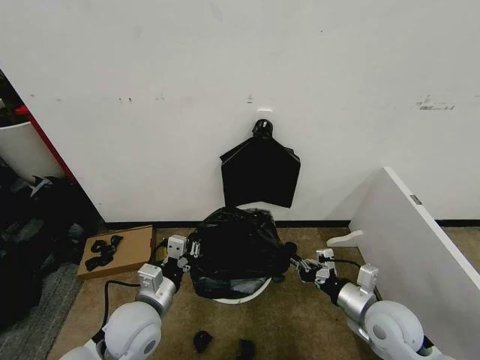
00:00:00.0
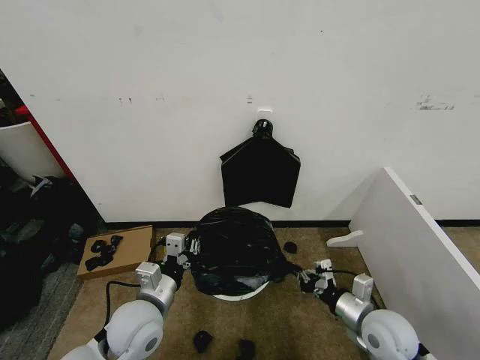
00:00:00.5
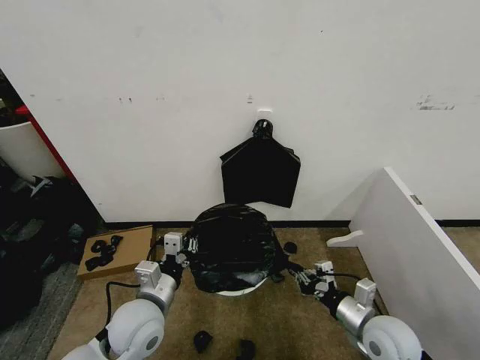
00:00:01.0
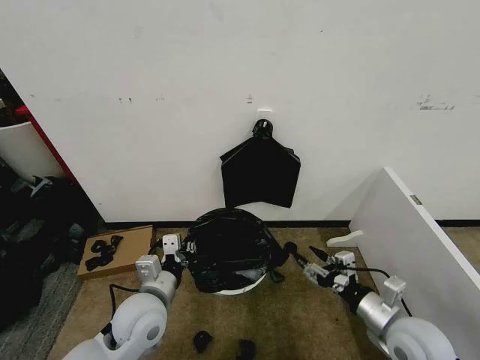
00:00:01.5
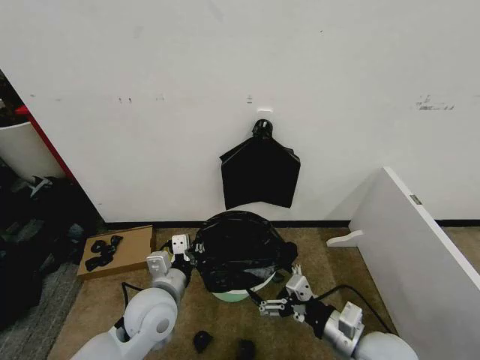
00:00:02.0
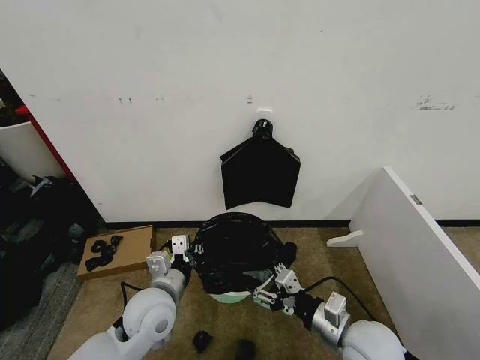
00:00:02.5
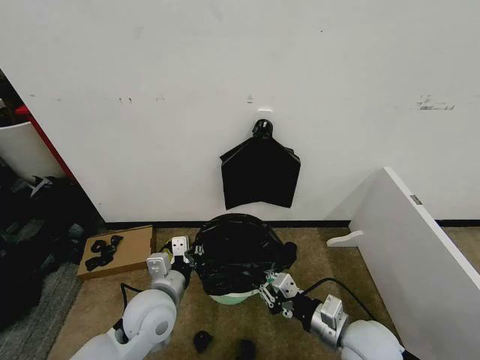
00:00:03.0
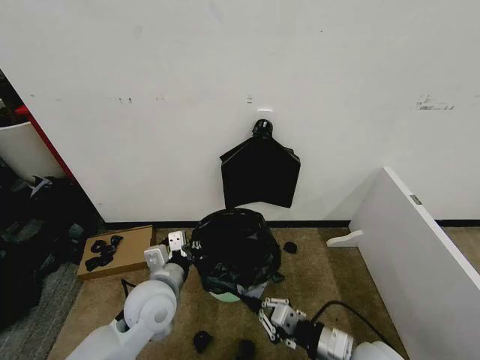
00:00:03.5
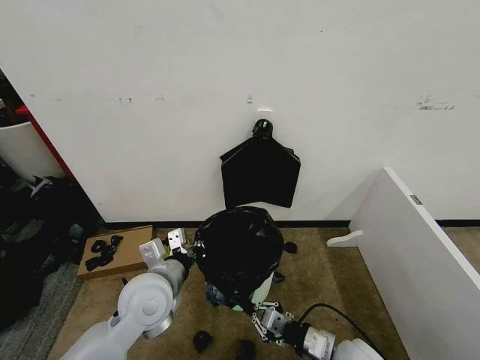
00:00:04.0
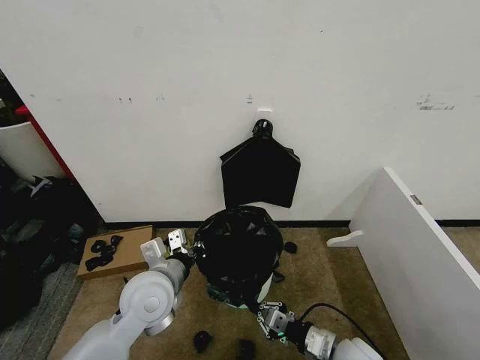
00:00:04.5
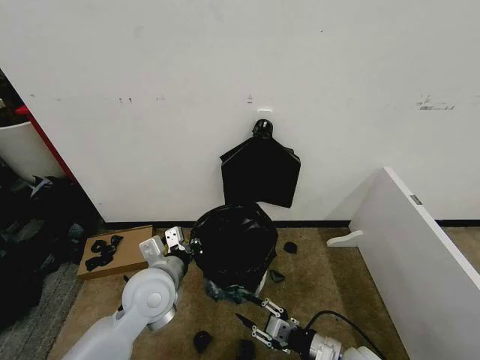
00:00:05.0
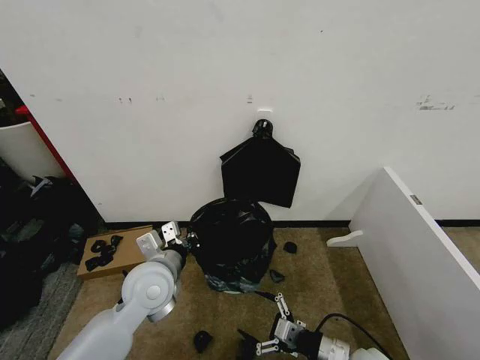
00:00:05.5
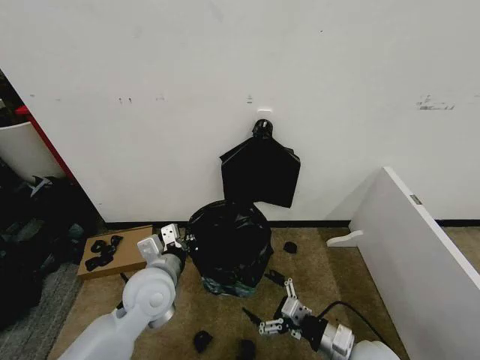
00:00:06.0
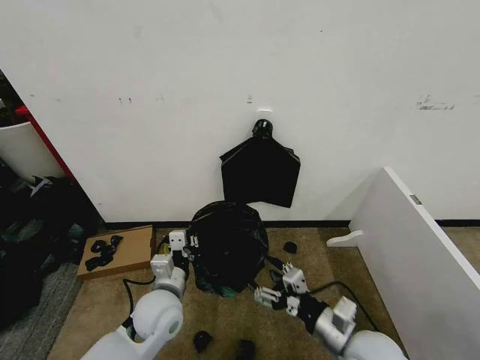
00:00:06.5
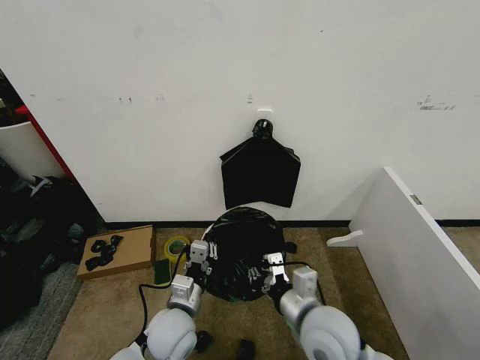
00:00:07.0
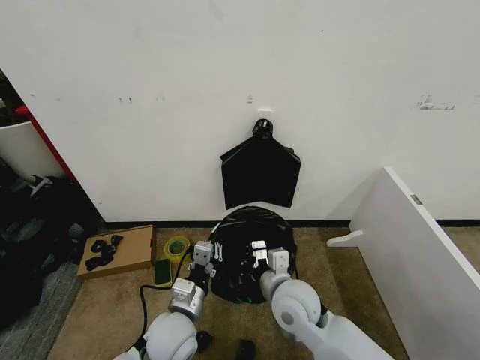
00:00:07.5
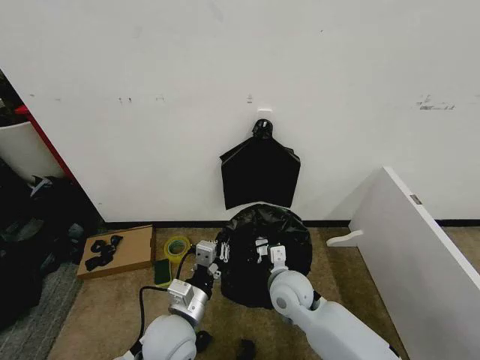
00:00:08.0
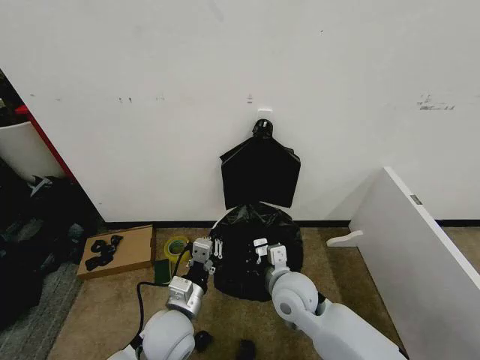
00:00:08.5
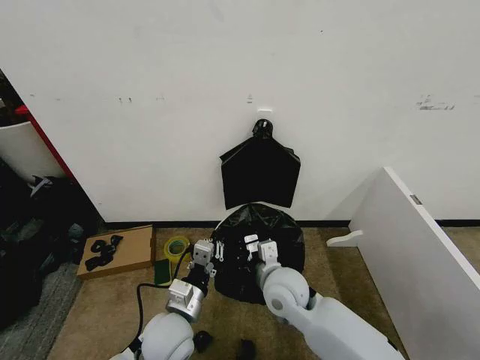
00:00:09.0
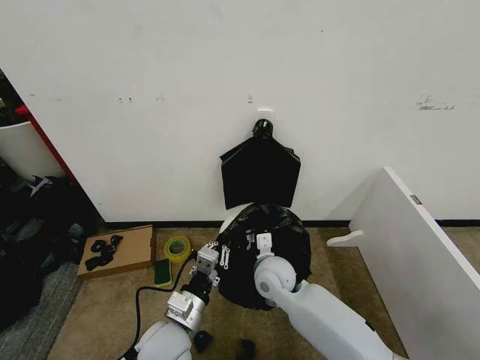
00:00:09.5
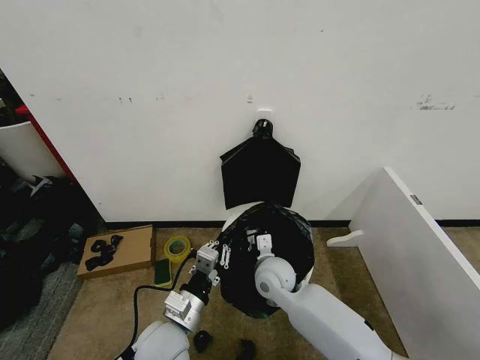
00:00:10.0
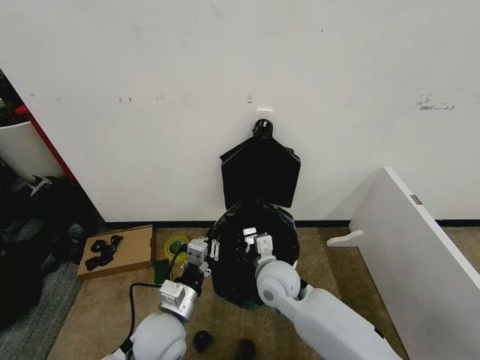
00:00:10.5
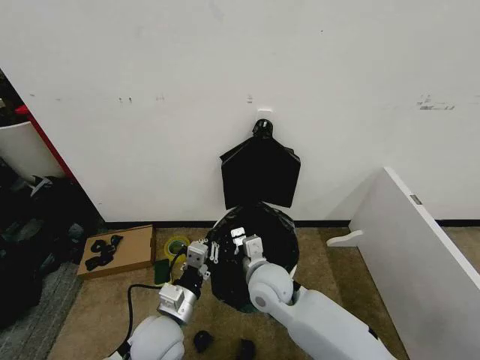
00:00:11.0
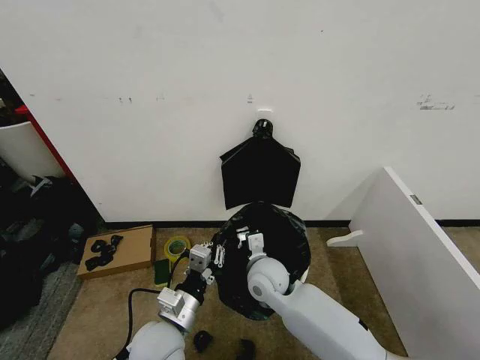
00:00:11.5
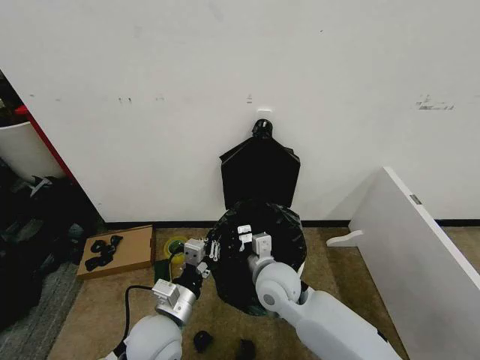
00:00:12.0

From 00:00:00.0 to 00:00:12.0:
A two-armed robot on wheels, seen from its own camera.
Task of the whole recording: Place the garbage bag over the trash bin.
From 00:00:00.0 to 00:00:02.0: The right gripper is displaced backward and to the left by approximately 10 cm, and opens.
From 00:00:02.0 to 00:00:04.0: The right gripper heads downward, covering some 10 cm, and closes up.
From 00:00:04.0 to 00:00:06.0: The right gripper opens.
From 00:00:06.0 to 00:00:08.0: The left gripper travels backward and downward by approximately 10 cm. The right gripper is displaced to the left and forward by approximately 20 cm, and closes up.
From 00:00:08.0 to 00:00:10.0: The right gripper moves roughly 5 cm.
From 00:00:10.0 to 00:00:12.0: The right gripper moves approximately 5 cm.

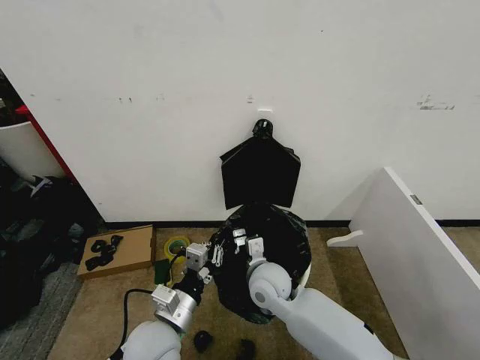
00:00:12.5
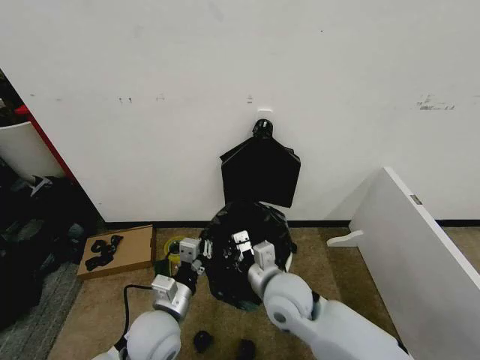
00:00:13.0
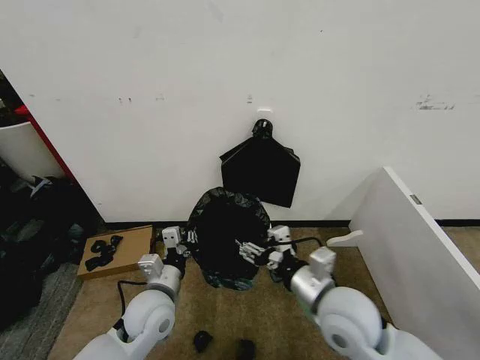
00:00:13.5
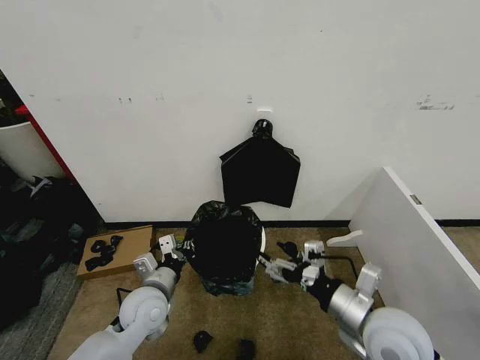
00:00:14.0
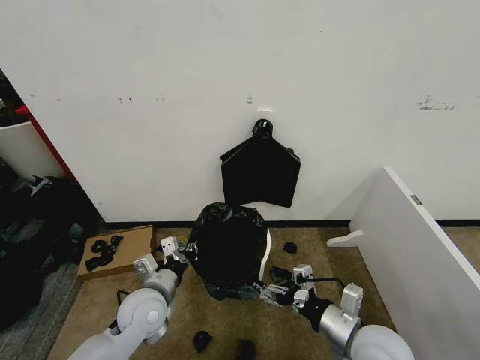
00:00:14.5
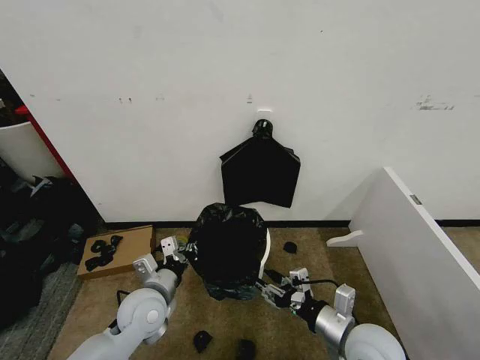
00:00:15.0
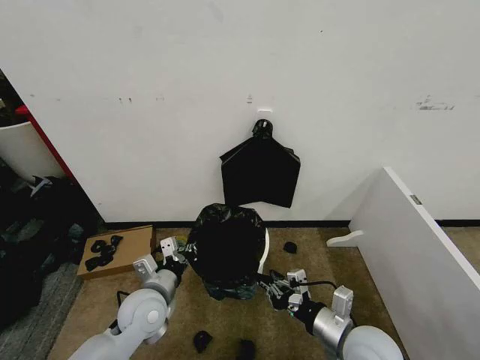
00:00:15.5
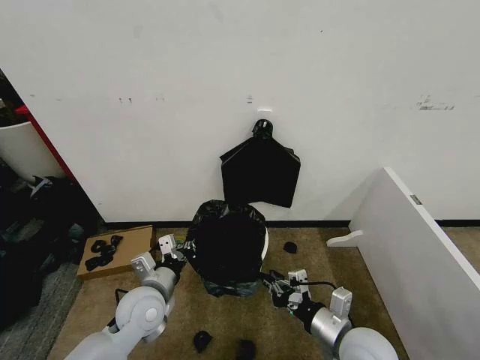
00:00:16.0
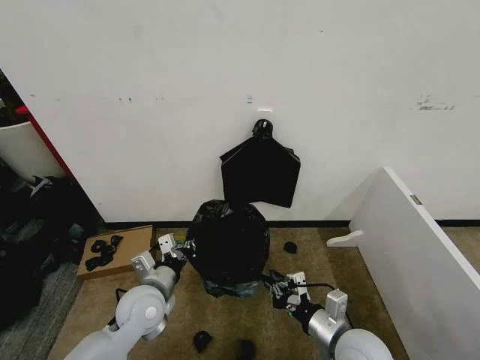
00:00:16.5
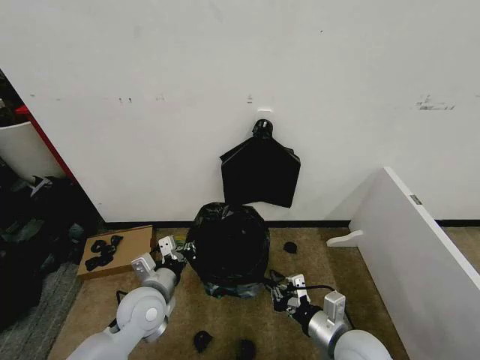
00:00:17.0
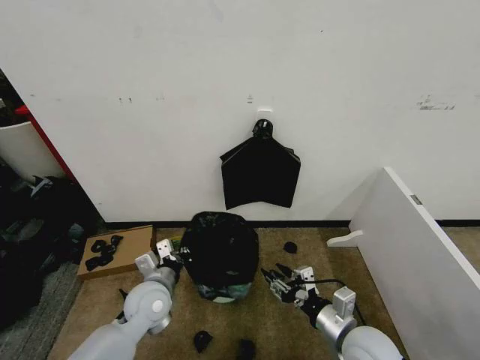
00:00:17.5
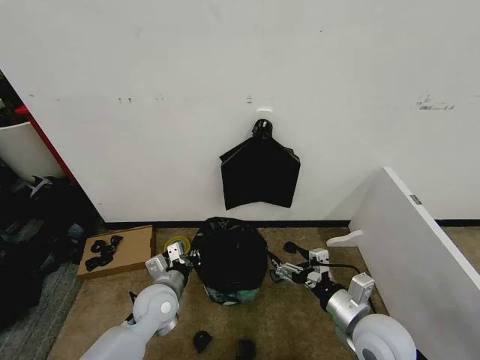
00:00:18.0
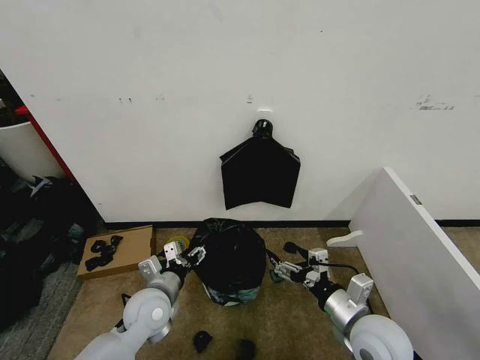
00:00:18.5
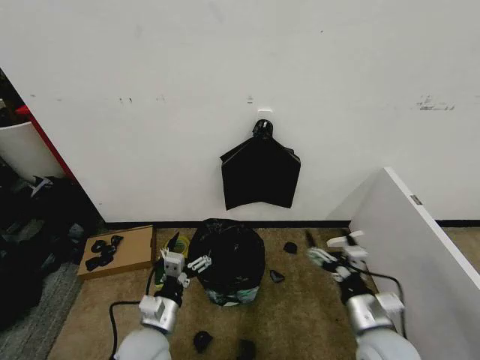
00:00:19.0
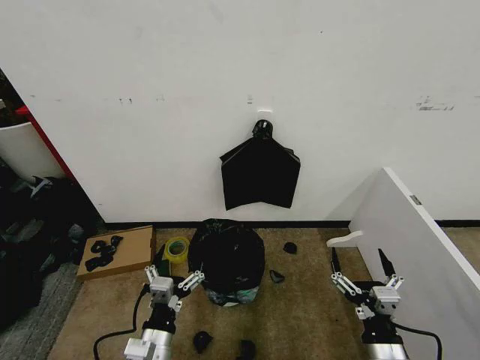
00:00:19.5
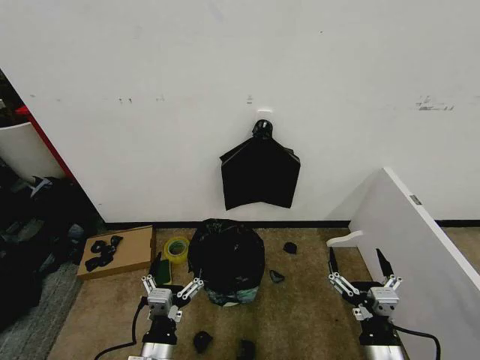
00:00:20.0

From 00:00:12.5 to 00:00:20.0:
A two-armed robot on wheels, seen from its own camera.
Task of the whole recording: Place the garbage bag over the trash bin.
From 00:00:12.5 to 00:00:14.5: The left gripper is displaced forward by approximately 5 cm. The right gripper is displaced to the right and backward by approximately 25 cm, and opens up.
From 00:00:14.5 to 00:00:16.5: The right gripper closes up.
From 00:00:16.5 to 00:00:18.0: The right gripper opens its fingers.
From 00:00:18.0 to 00:00:20.0: The right gripper travels backward by some 10 cm. Meanwhile the left gripper moves backward, roughly 20 cm, and opens.

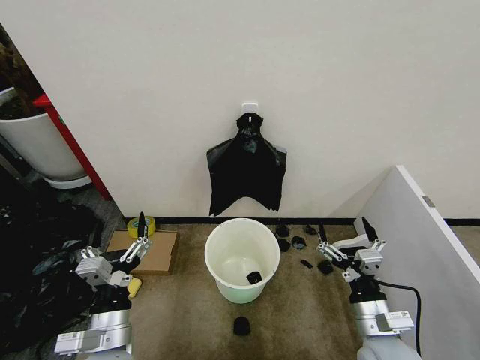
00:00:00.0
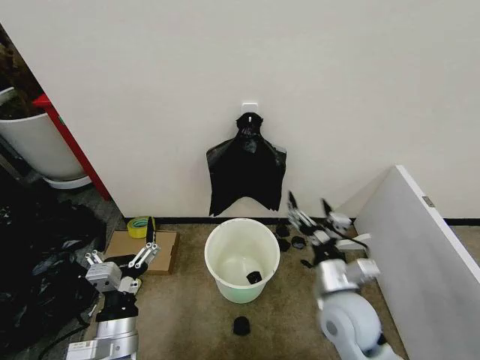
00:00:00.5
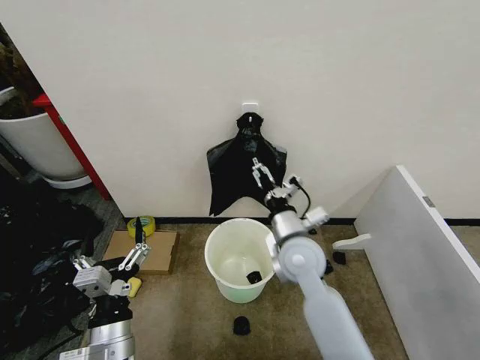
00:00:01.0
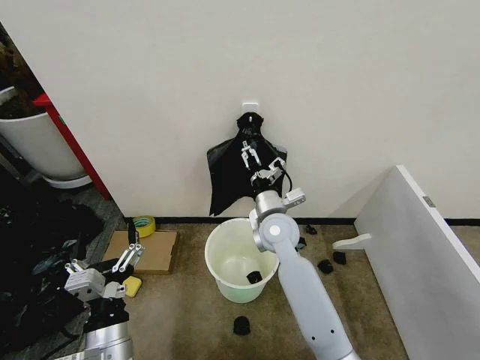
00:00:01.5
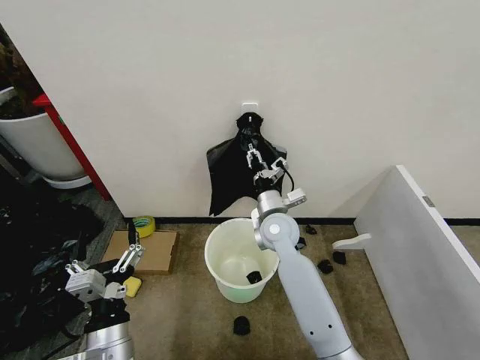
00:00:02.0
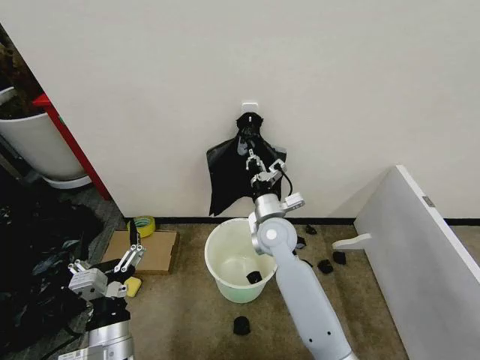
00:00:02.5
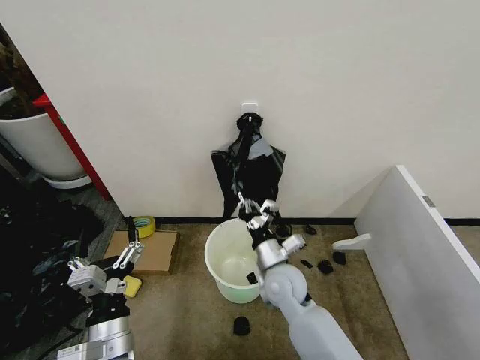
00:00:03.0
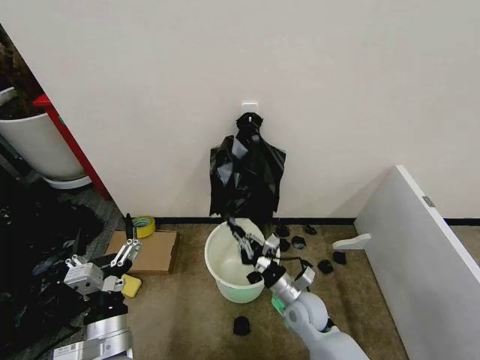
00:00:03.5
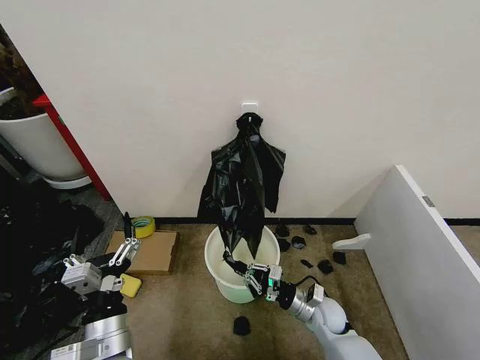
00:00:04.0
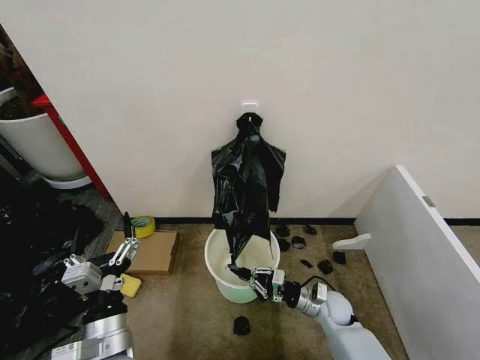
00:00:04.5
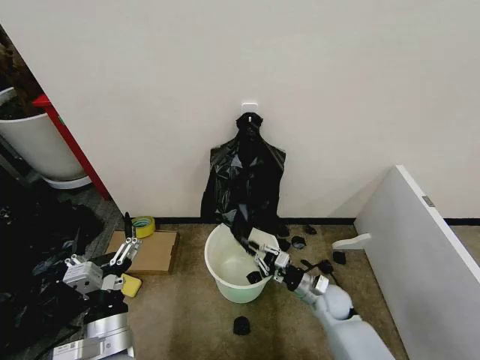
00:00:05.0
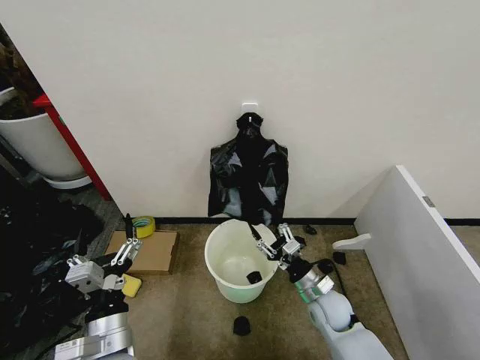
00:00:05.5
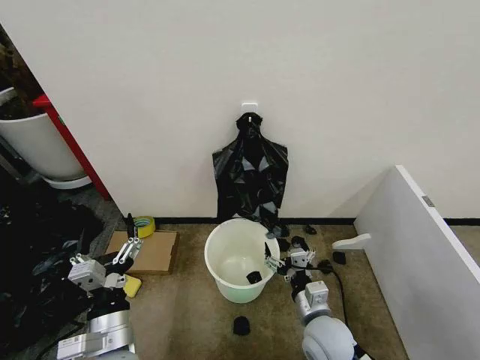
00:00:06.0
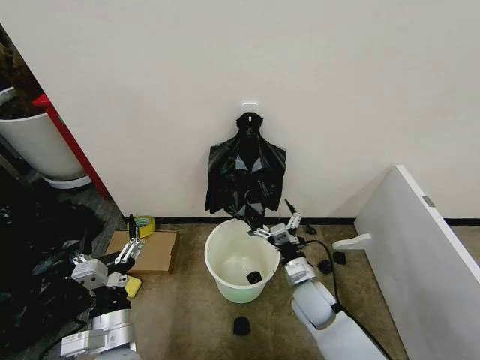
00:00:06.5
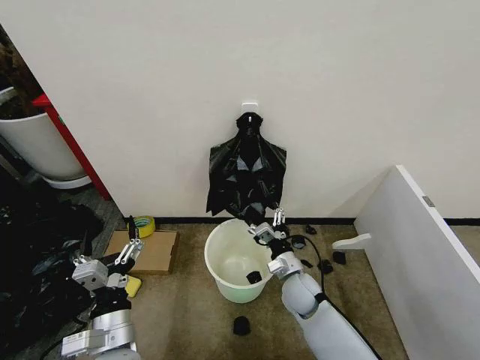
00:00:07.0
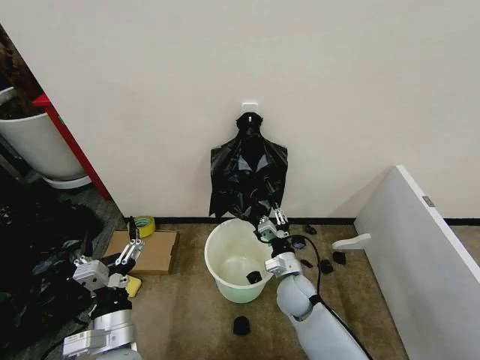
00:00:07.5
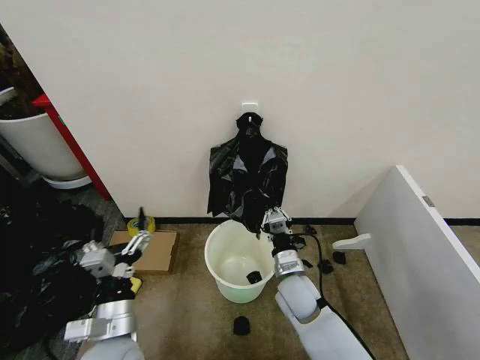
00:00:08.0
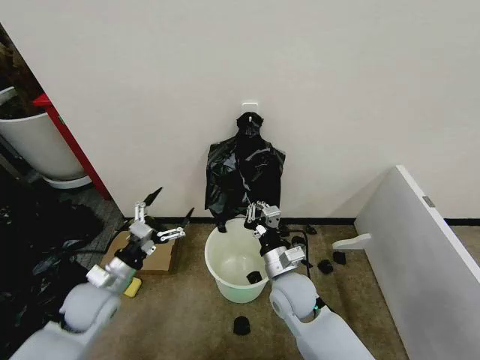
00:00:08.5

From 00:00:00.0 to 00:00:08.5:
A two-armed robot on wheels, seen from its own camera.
Task of the whole recording: Place the garbage bag over the trash bin.
From 00:00:02.0 to 00:00:04.0: The right gripper goes approximately 25 cm downward, backward and to the right, and closes up.
From 00:00:04.0 to 00:00:06.5: The right gripper travels upward by roughly 5 cm, goes backward and returns, approximately 10 cm each way, and opens up.
From 00:00:06.5 to 00:00:08.5: The left gripper heads forward and to the left, covering about 15 cm. Meanwhile the right gripper shifts approximately 10 cm to the left and upward, and closes its fingers.
